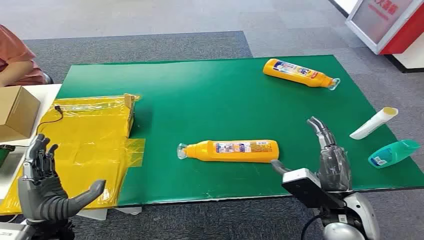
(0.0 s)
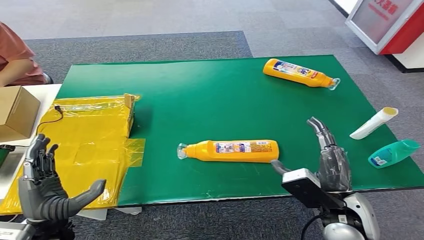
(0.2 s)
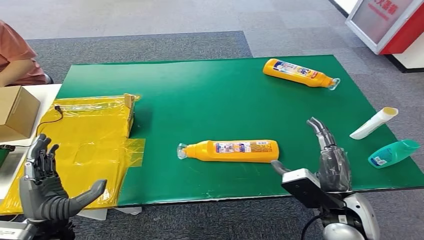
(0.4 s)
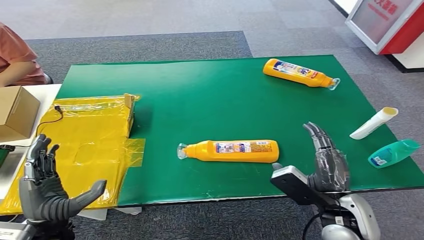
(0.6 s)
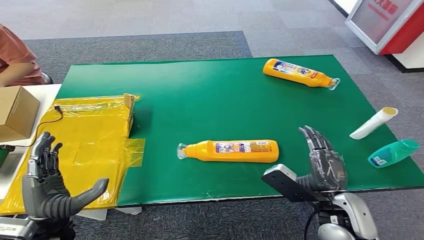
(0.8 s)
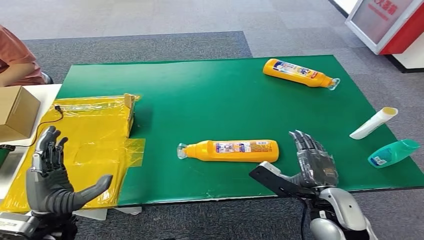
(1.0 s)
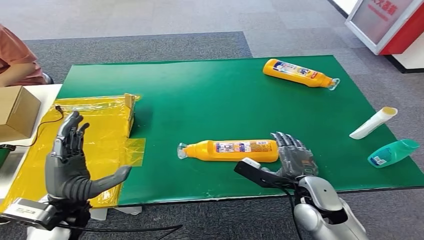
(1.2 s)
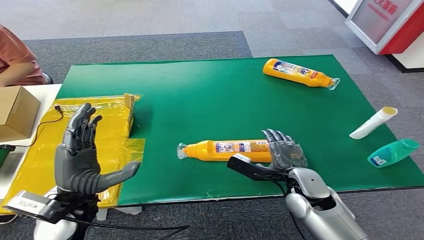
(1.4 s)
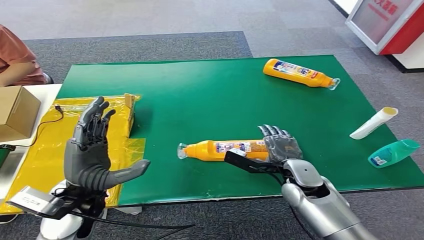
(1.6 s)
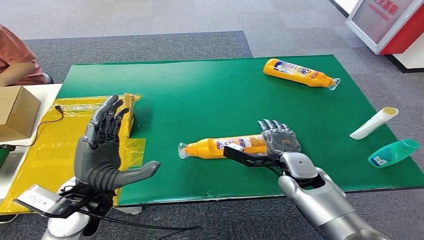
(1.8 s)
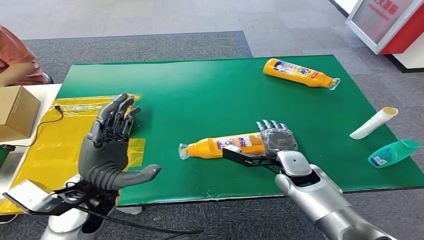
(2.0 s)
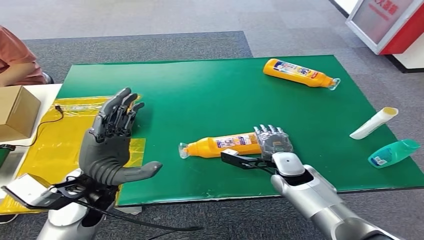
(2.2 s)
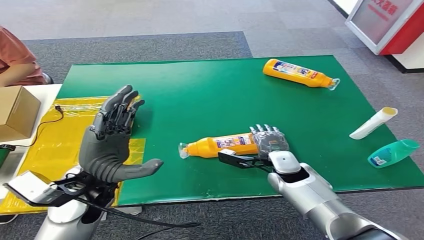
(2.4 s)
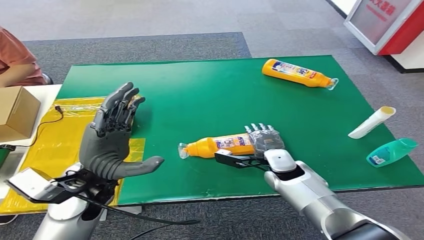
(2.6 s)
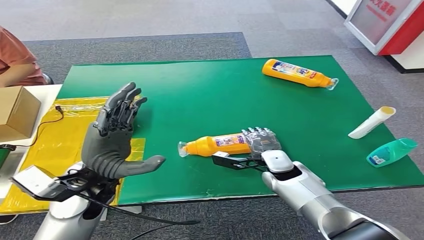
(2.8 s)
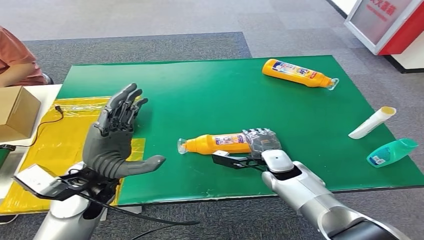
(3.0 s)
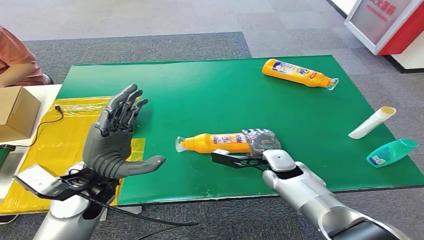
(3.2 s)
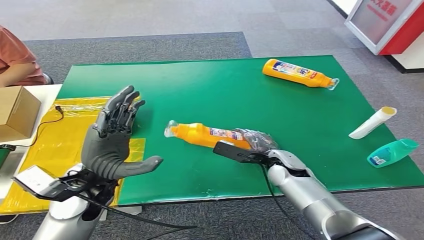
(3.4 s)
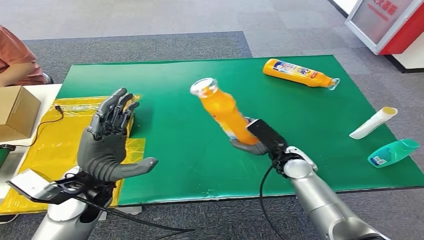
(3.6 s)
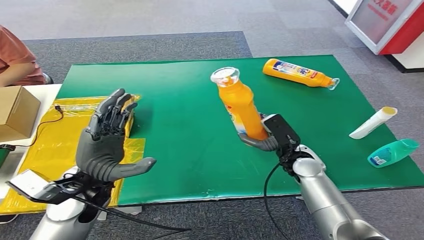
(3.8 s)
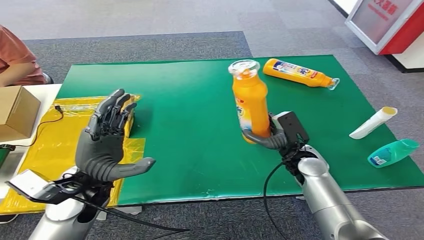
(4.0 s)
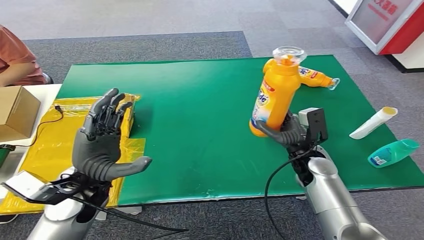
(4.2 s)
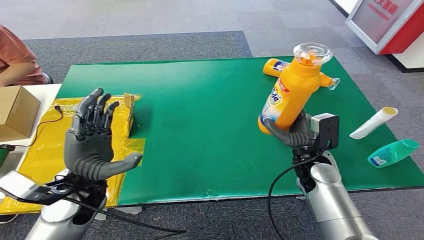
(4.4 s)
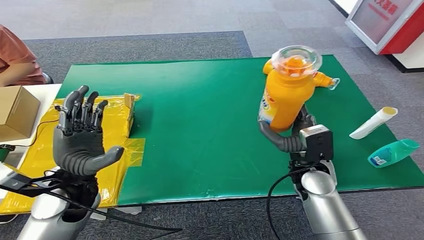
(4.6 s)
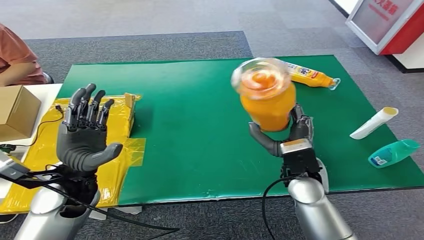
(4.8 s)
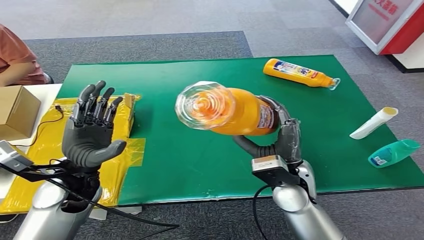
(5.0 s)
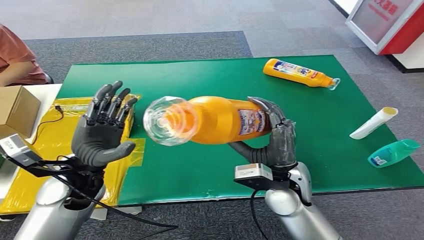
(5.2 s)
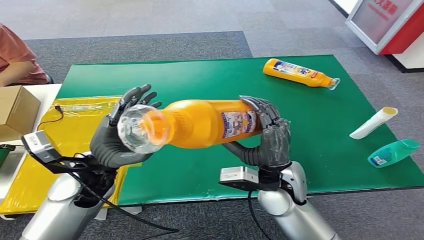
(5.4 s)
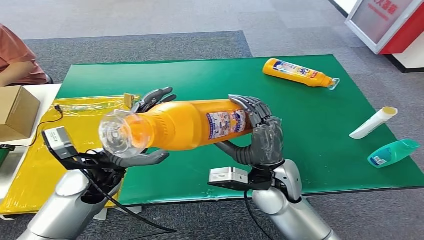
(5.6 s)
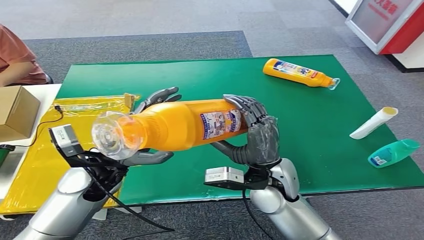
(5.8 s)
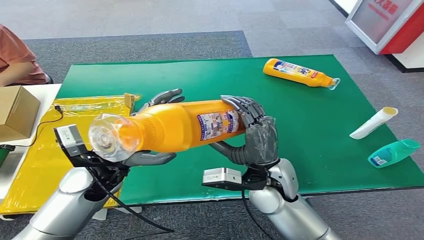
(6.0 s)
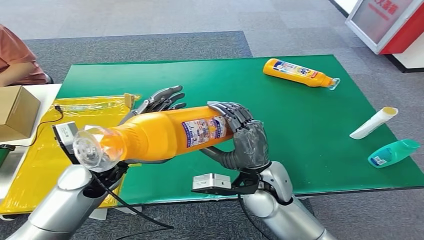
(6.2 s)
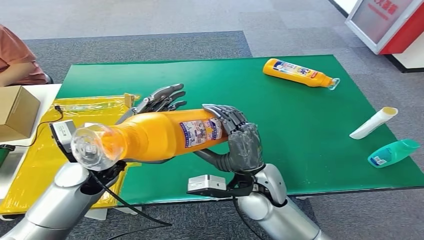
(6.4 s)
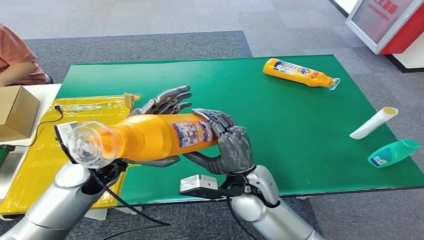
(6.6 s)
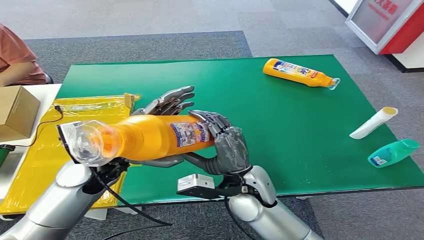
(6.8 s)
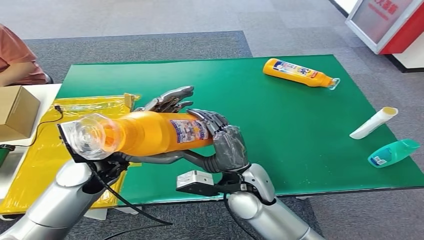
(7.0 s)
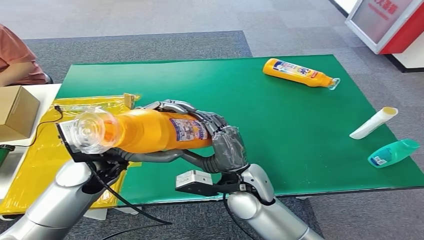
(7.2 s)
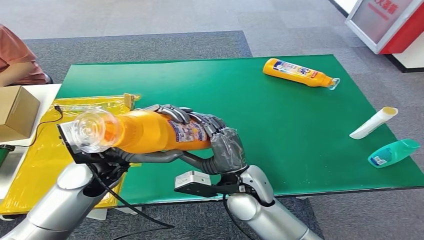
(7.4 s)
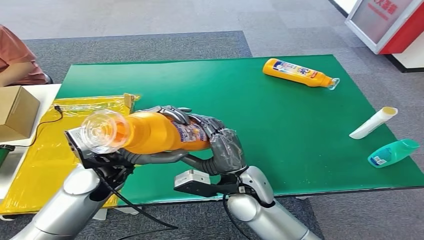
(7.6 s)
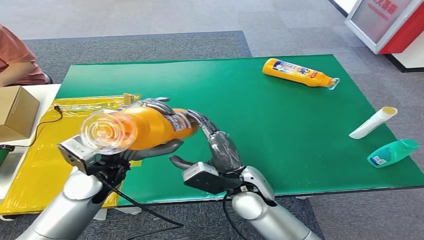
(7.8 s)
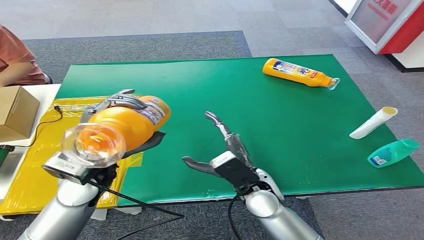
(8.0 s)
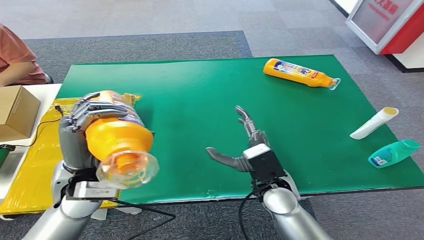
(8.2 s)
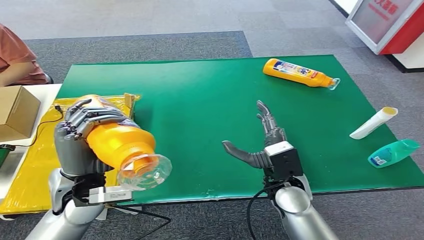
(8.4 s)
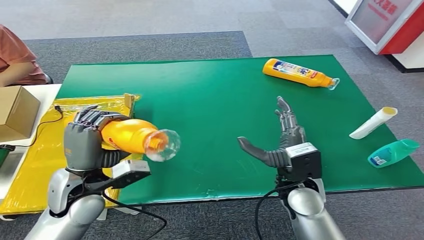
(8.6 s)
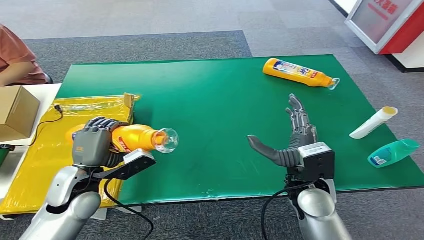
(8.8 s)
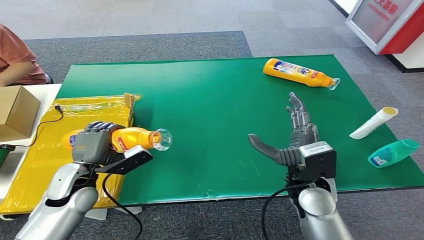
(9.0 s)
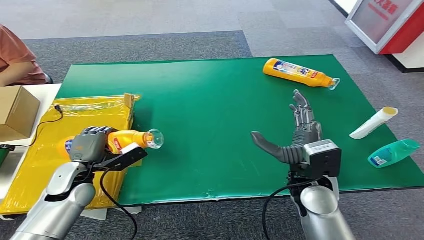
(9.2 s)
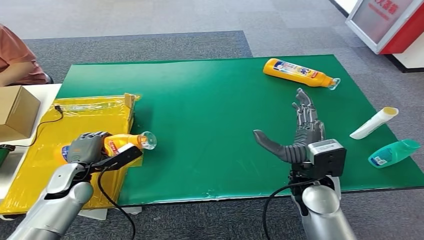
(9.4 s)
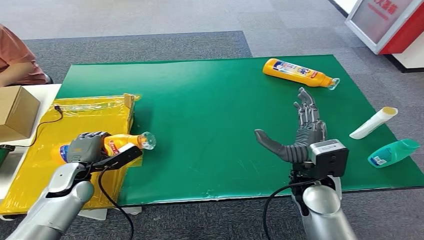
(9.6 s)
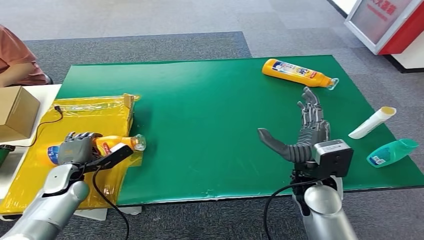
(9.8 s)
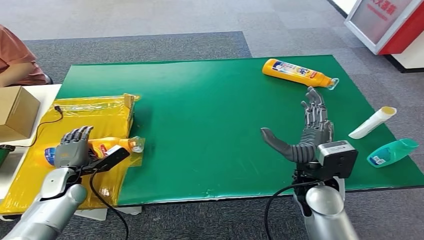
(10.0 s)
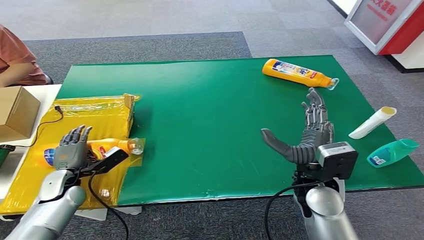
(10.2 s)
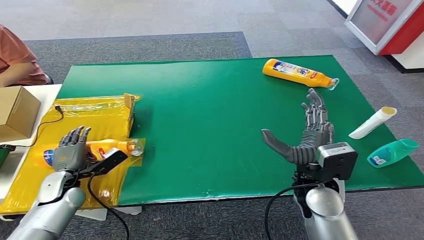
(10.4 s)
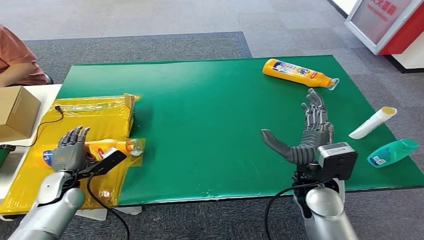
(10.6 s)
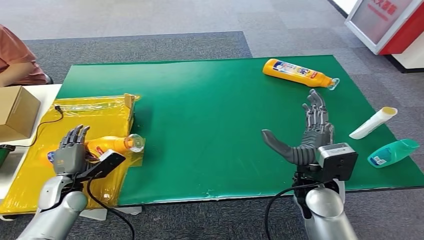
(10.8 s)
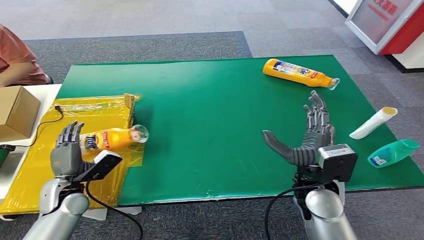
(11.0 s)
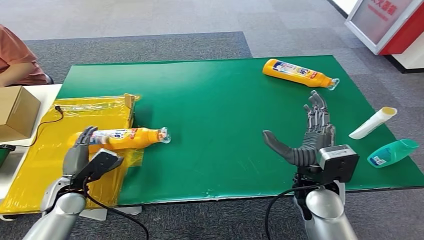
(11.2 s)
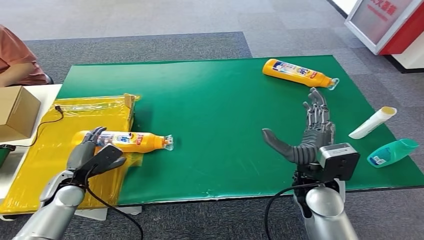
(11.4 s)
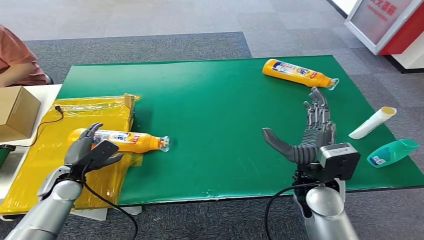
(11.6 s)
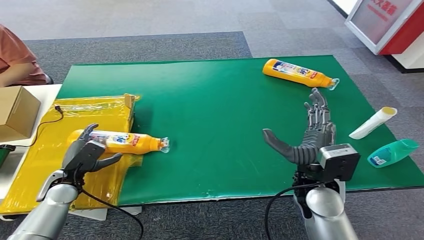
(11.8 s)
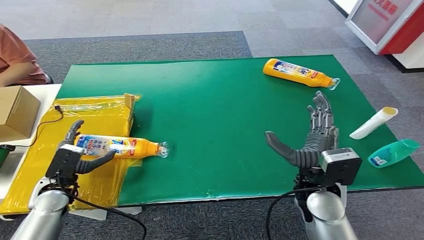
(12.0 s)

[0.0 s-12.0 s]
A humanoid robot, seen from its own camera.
Step, 0.0 to 4.6 s: Pick up the bottle from the table.
Step, 4.8 to 12.0 s: Turn the bottle to the front side.
6.0 to 7.6 s: The right hand moves some 5 cm.
9.0 to 10.4 s: The left hand shifts roughly 10 cm downward and to the left.

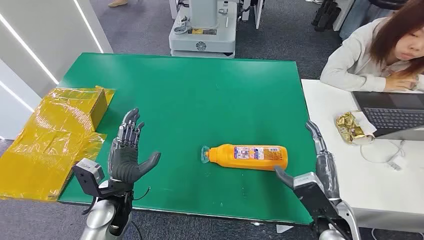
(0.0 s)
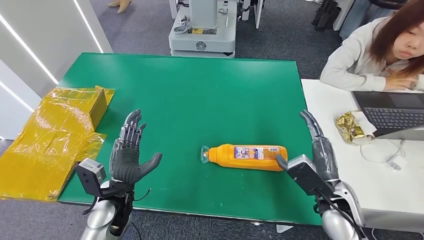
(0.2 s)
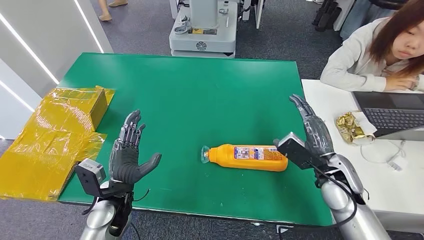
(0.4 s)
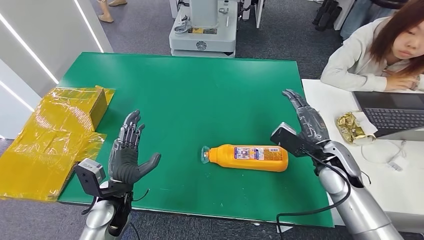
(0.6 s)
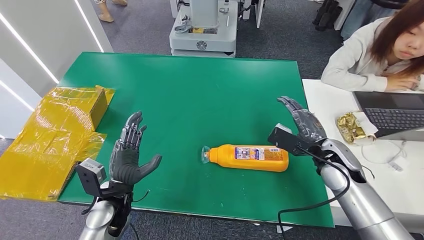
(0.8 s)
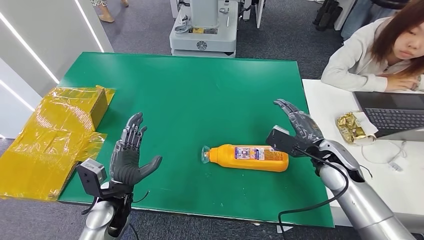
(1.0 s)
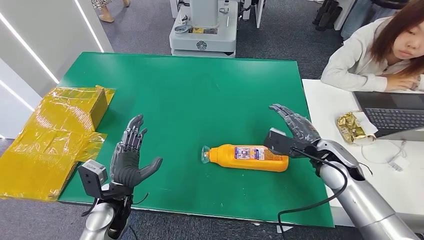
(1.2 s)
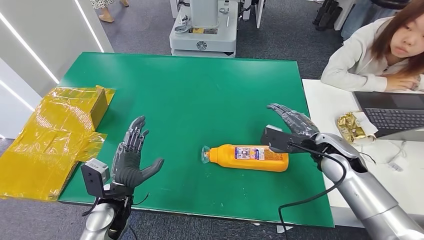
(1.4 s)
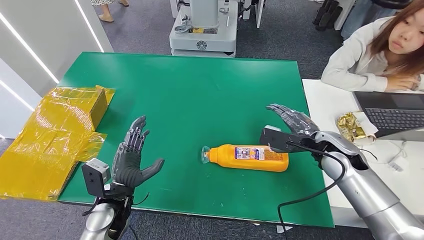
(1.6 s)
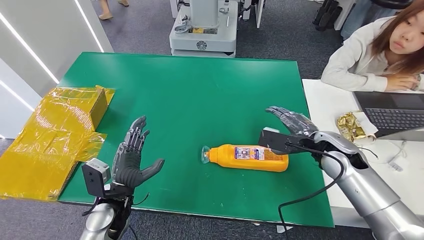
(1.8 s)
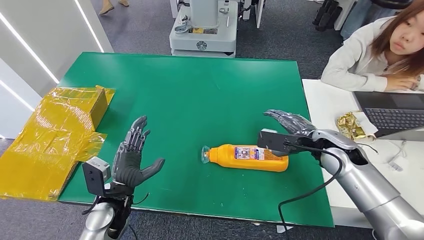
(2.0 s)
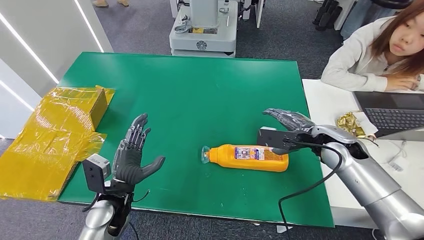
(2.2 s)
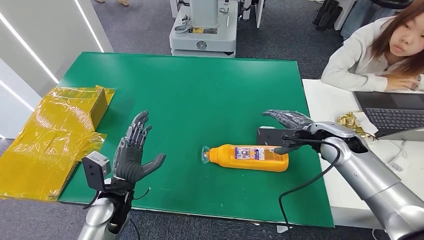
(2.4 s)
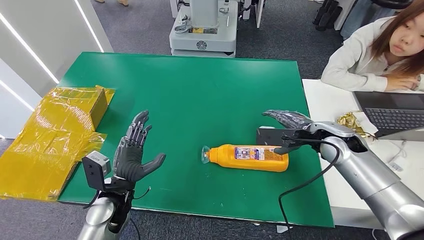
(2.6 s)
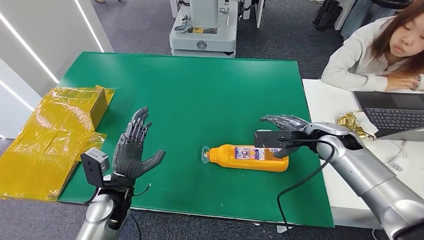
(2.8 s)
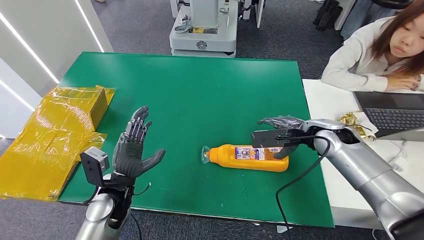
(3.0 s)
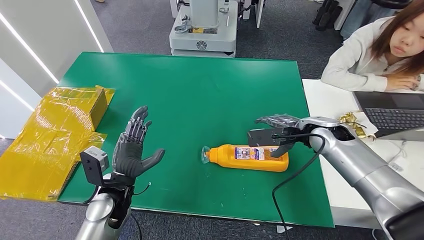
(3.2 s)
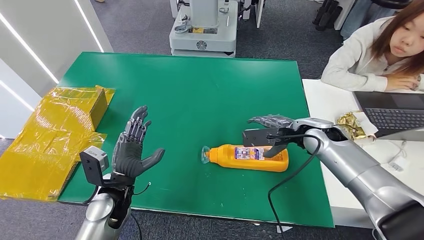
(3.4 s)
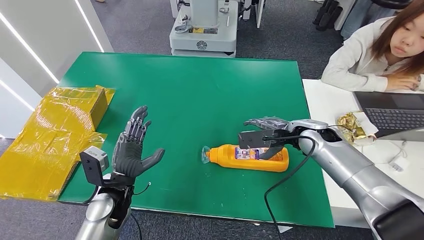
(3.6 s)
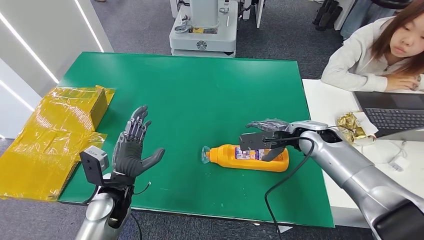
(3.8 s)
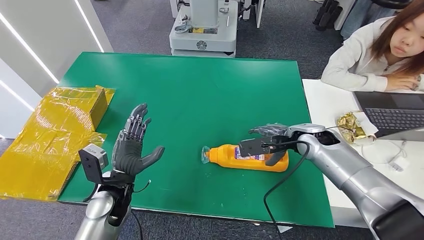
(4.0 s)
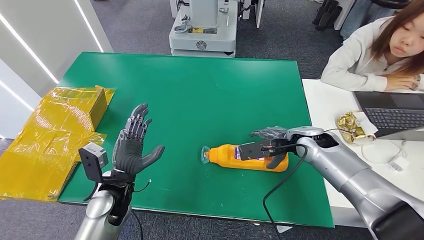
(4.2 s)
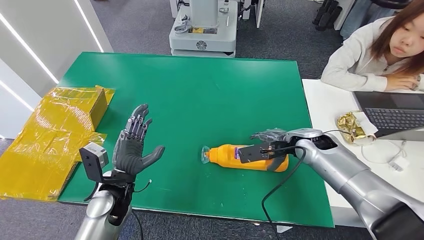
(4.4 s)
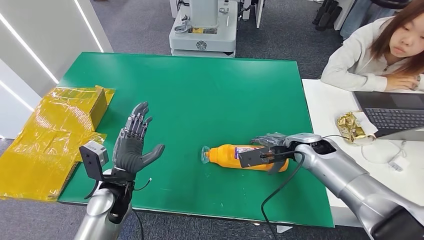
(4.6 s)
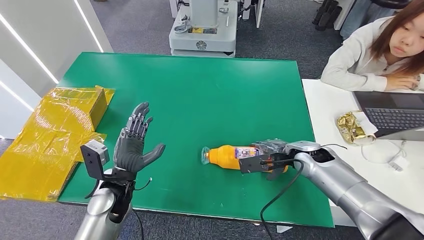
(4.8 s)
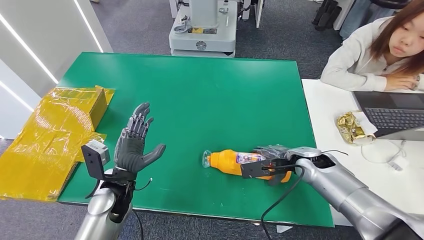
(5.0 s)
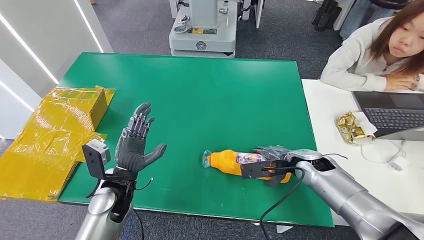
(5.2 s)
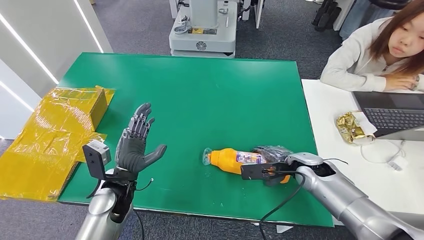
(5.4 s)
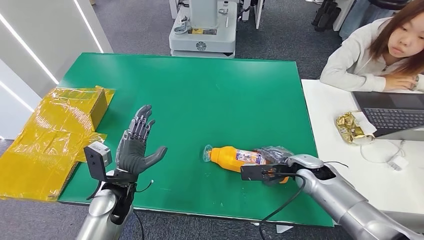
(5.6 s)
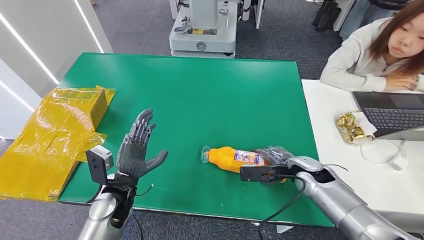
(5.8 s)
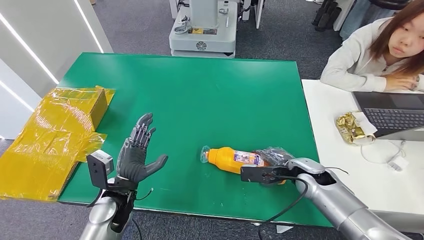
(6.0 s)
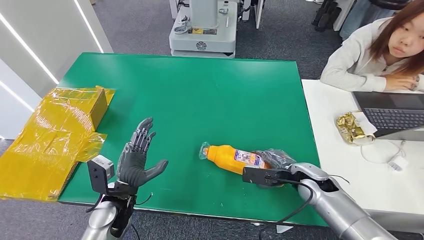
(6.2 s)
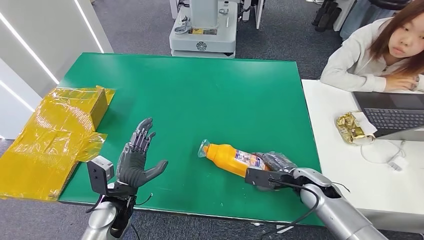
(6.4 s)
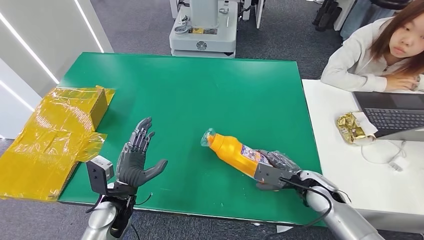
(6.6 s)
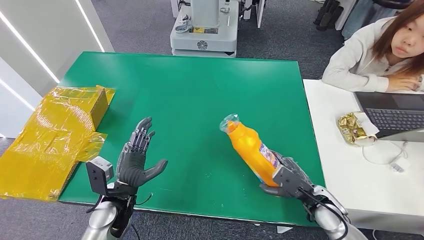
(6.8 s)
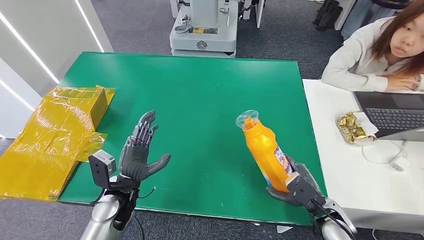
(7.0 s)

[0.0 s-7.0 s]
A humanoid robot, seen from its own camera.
1.4 to 2.8 s: There are only small adjustments of the hands.
2.8 to 4.2 s: The right hand moves about 5 cm.
4.2 to 5.6 s: The right hand is displaced downward by some 10 cm.
5.6 to 7.0 s: The right hand goes some 10 cm backward.
